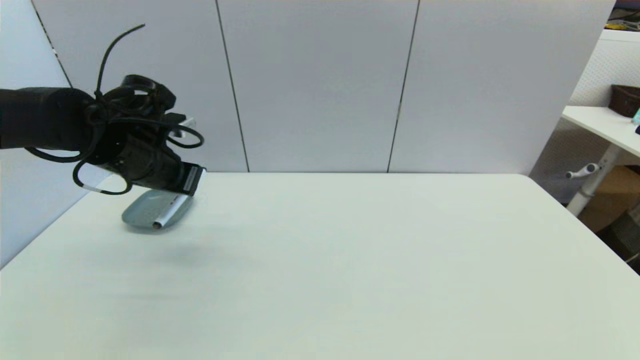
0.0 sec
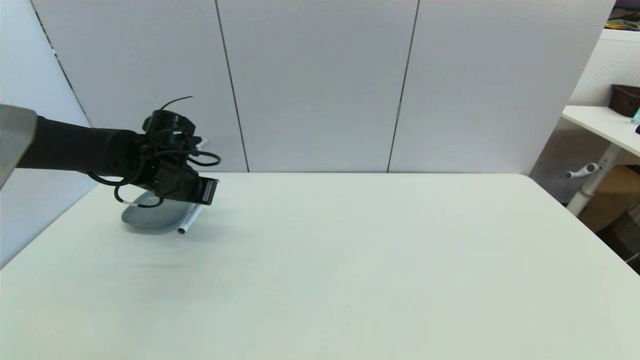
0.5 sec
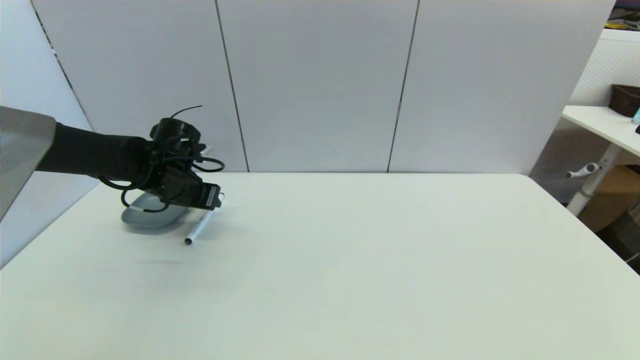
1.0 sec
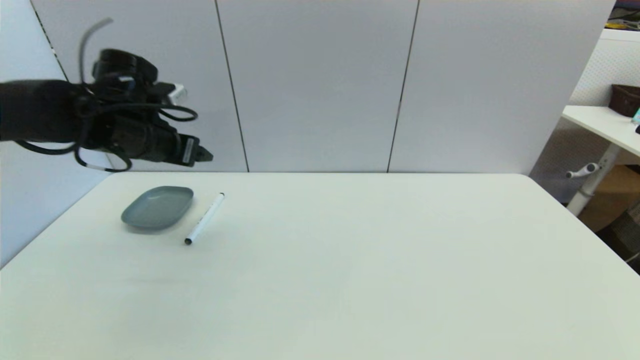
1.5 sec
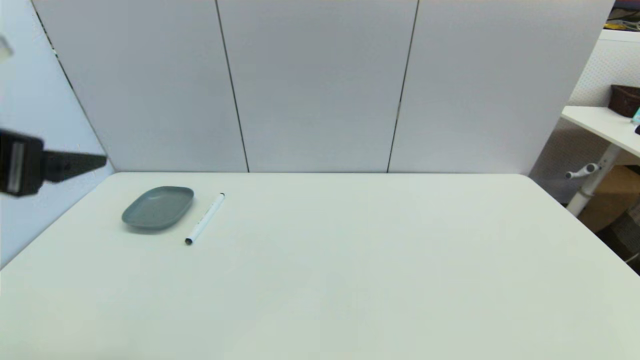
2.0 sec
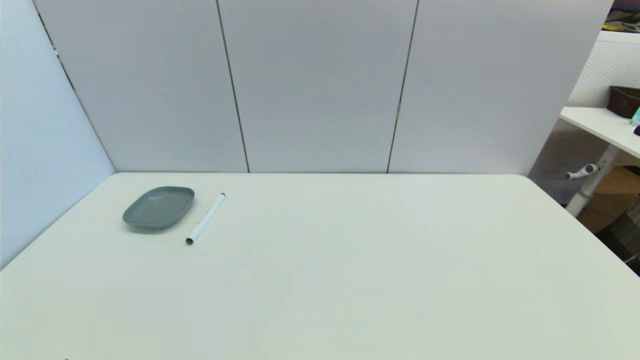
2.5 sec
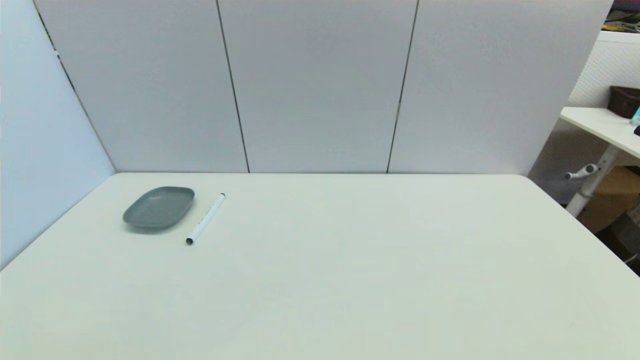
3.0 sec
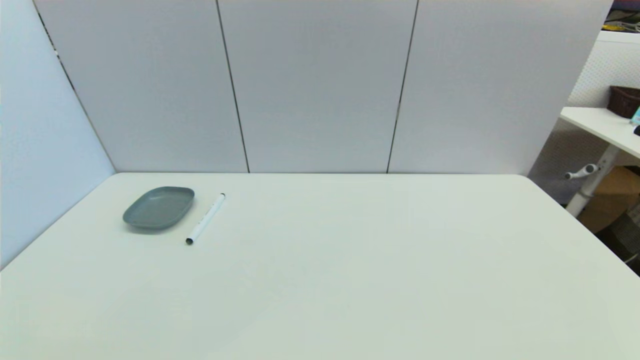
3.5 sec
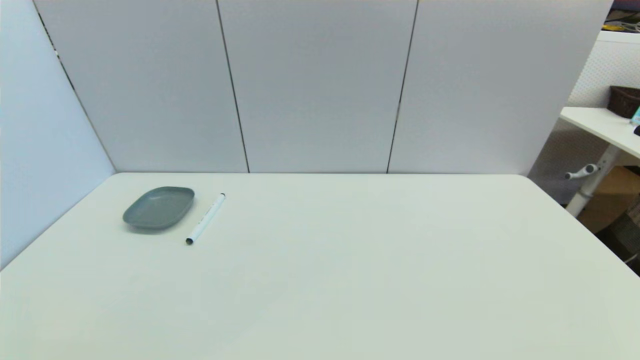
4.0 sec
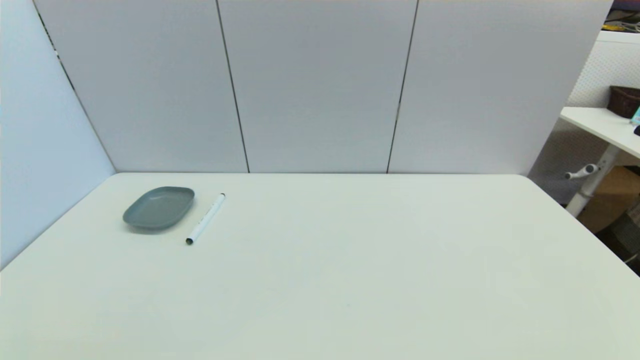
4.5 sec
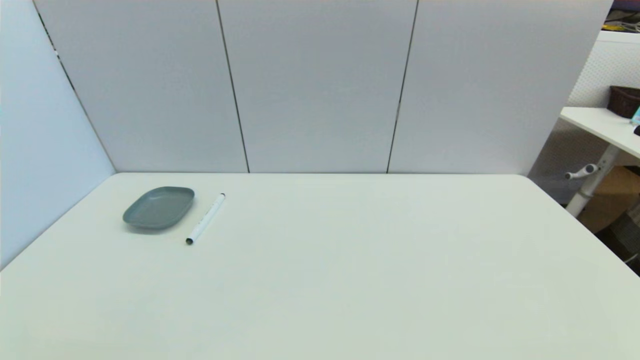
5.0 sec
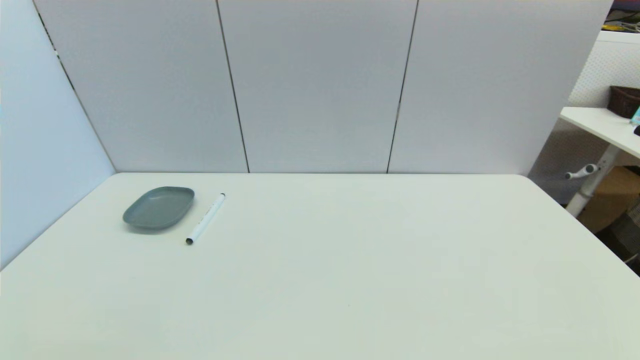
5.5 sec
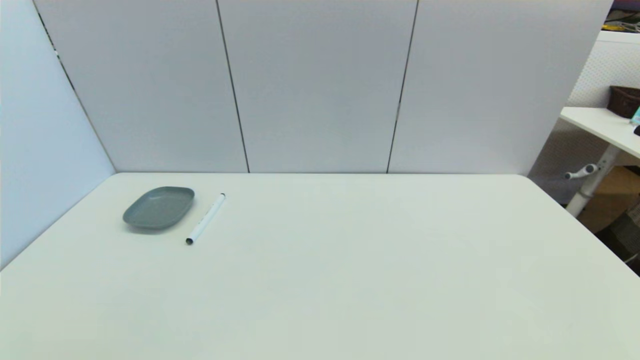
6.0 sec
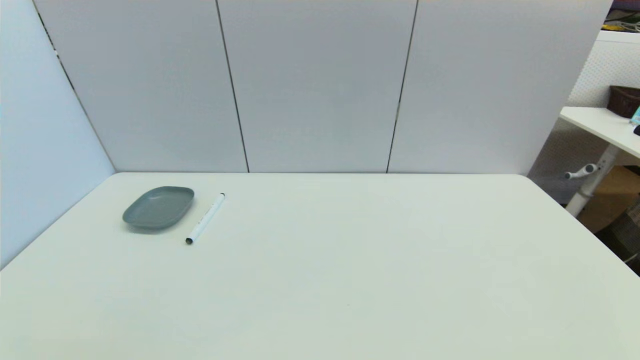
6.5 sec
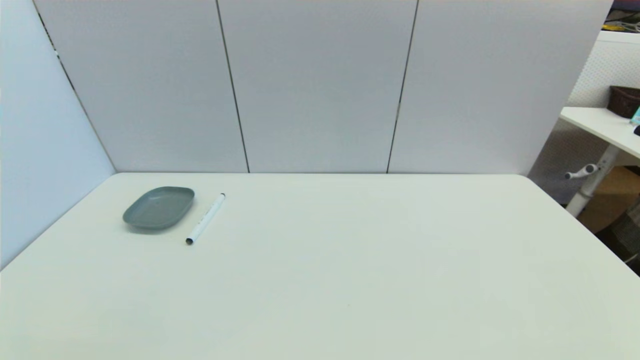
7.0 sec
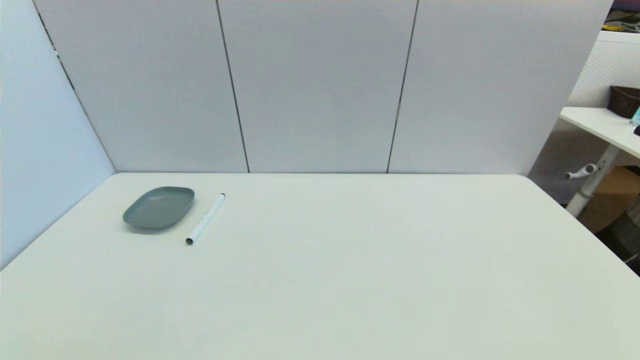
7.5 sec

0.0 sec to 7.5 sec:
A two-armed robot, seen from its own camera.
Task of the whole recording: put the black marker in the designated position.
Step, 0.0 sec to 1.0 sec: Place the Marker pen on the table with left gripper.
0.0 sec to 2.0 sec: The left gripper moves backward and upward, approximately 20 cm, and opens its fingers.
2.0 sec to 4.0 sec: The left gripper is displaced downward and backward by approximately 30 cm.
4.0 sec to 7.5 sec: The two grippers keep their place.
